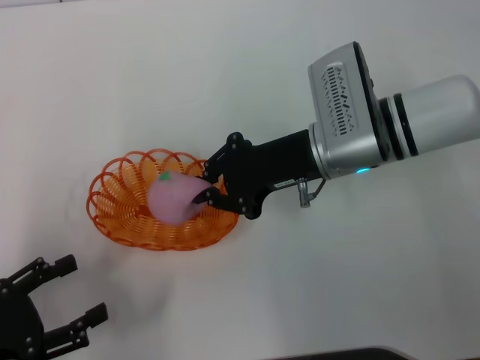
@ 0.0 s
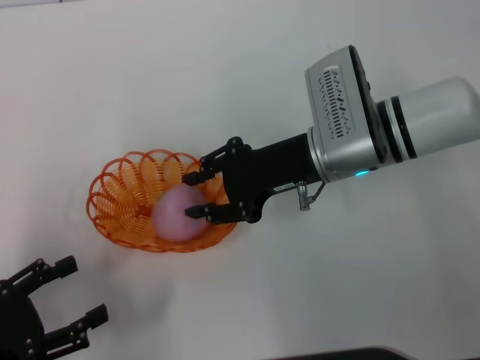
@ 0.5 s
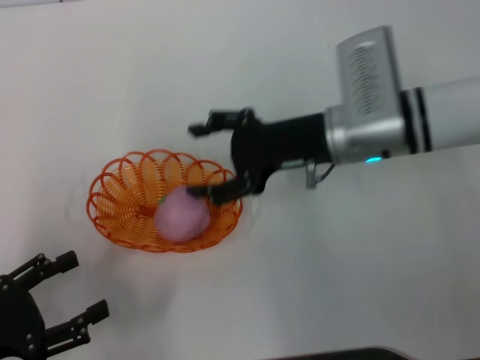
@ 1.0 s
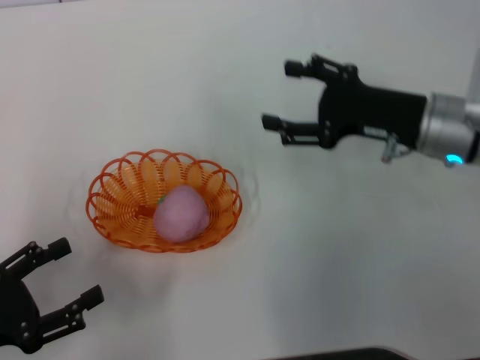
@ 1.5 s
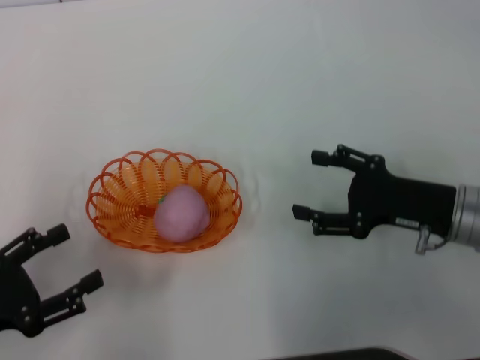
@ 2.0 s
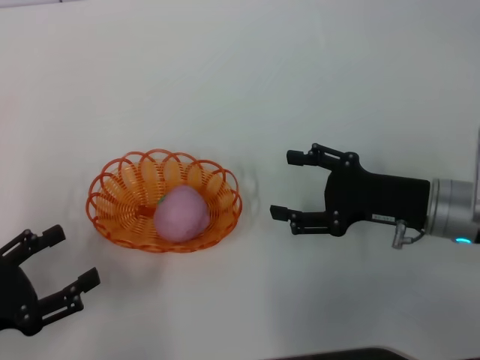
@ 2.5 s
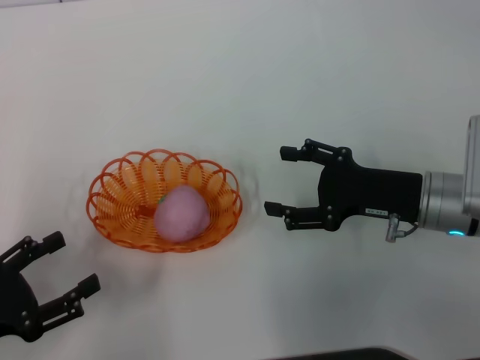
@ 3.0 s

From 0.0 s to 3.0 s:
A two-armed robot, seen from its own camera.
From 0.0 s to 1.5 s: The right gripper travels to the right by some 10 cm, and opens its fingers.
From 1.5 s to 3.0 s: The right gripper moves backward, roughly 5 cm.

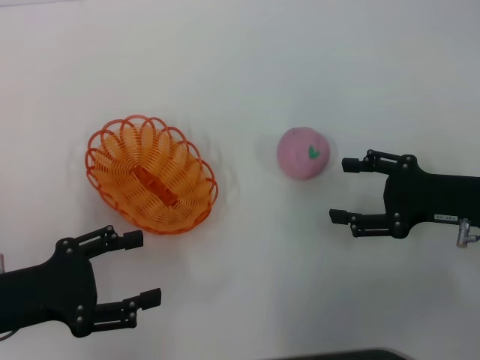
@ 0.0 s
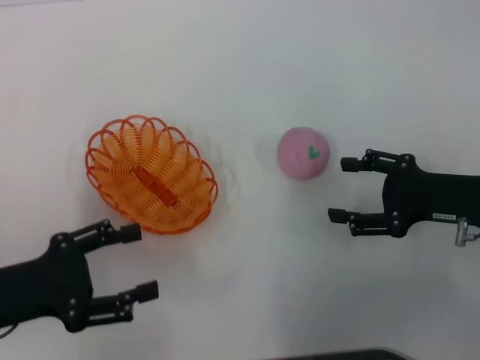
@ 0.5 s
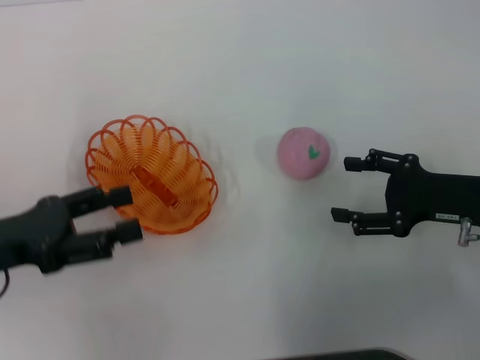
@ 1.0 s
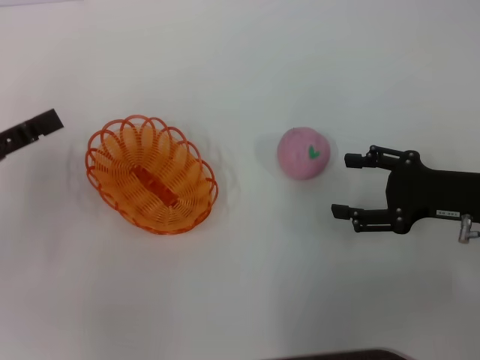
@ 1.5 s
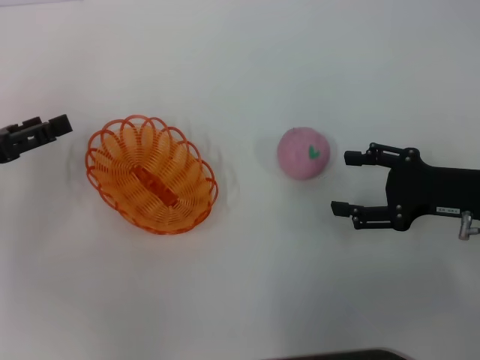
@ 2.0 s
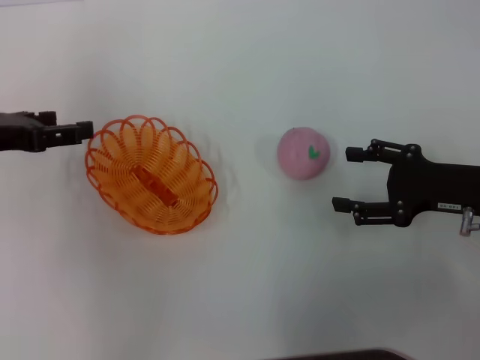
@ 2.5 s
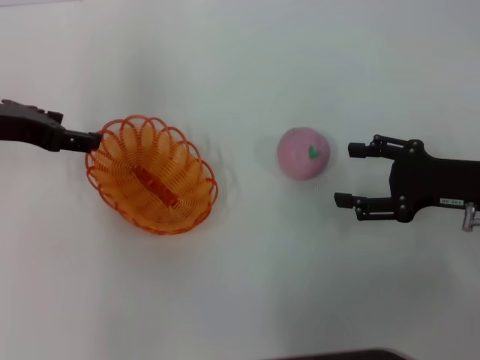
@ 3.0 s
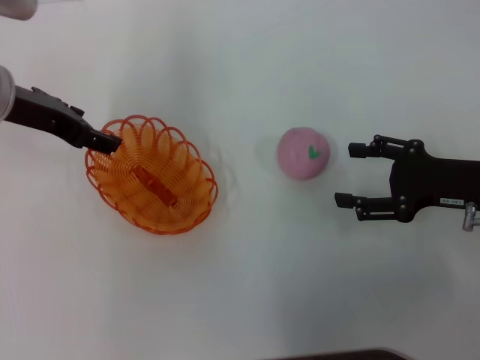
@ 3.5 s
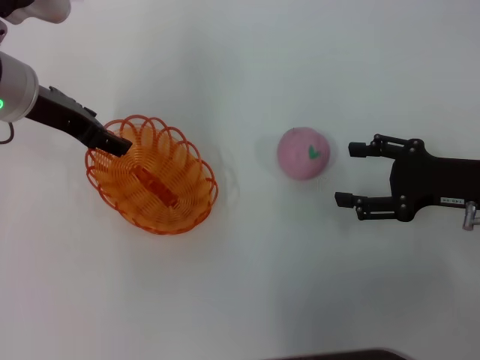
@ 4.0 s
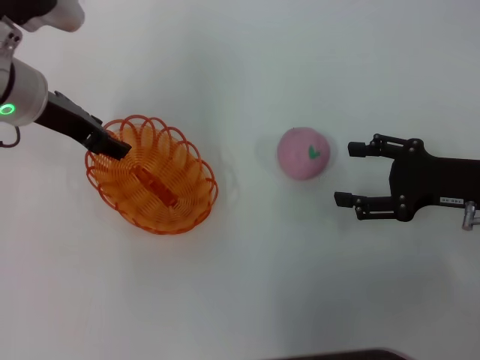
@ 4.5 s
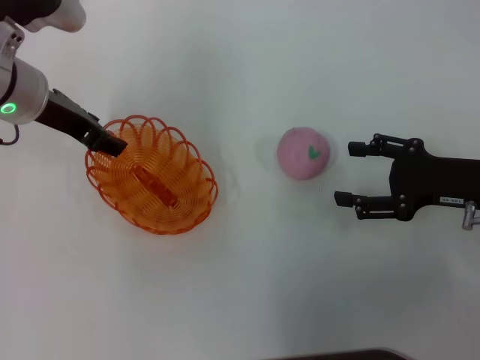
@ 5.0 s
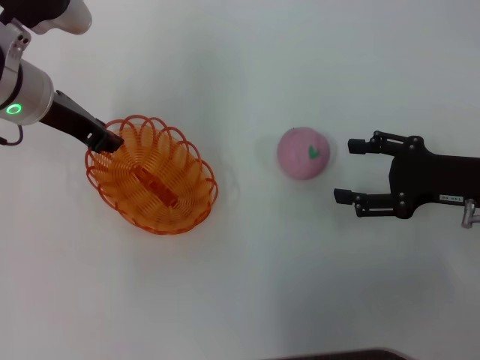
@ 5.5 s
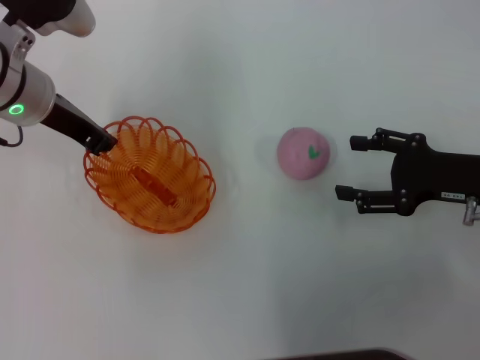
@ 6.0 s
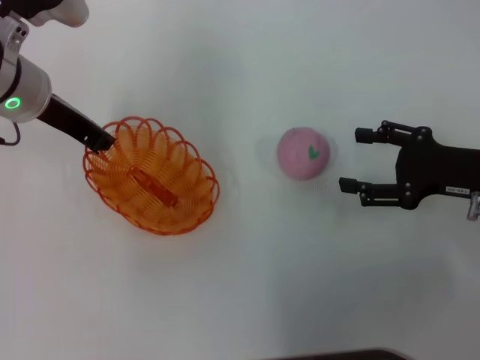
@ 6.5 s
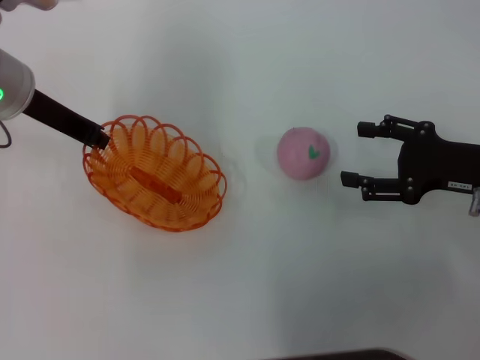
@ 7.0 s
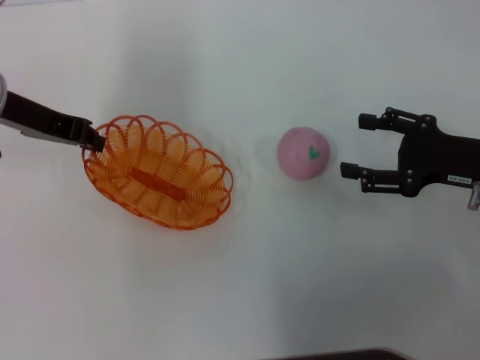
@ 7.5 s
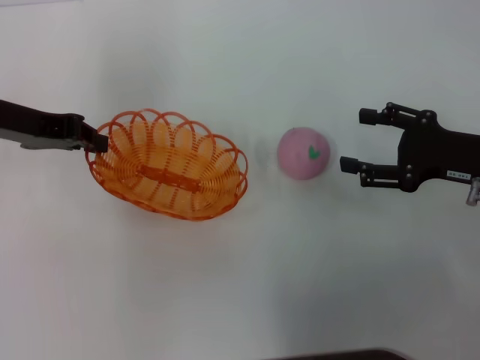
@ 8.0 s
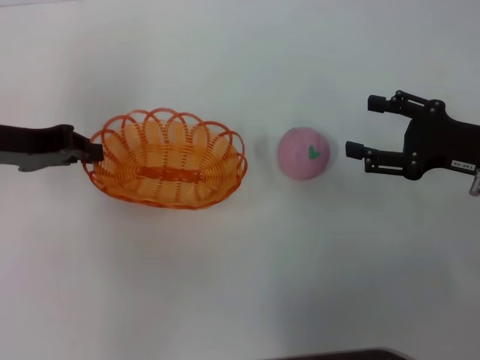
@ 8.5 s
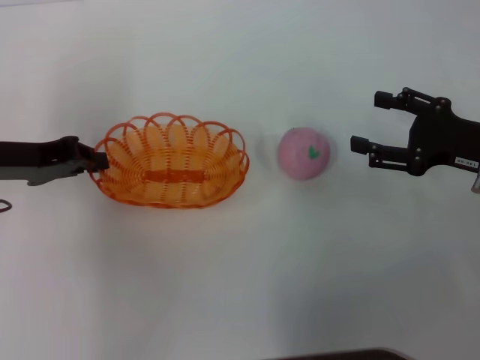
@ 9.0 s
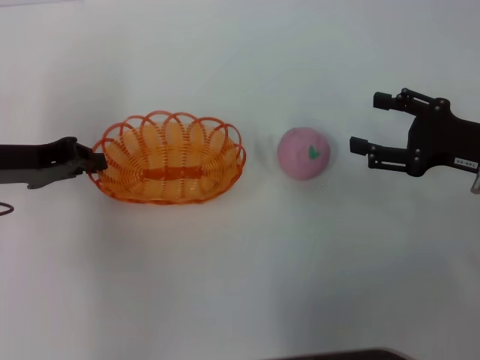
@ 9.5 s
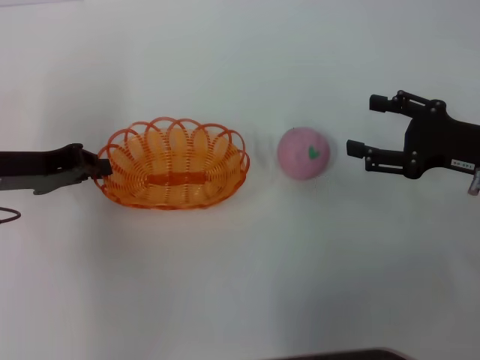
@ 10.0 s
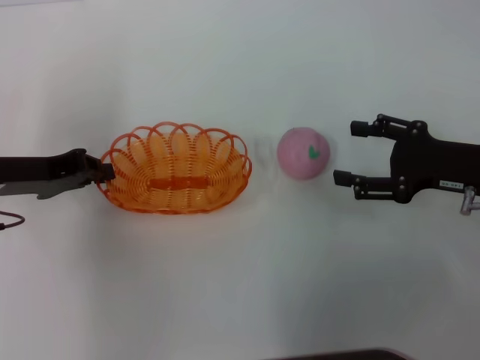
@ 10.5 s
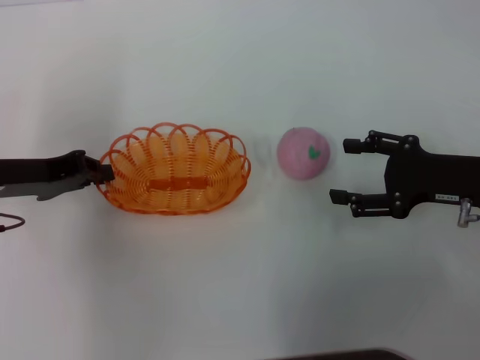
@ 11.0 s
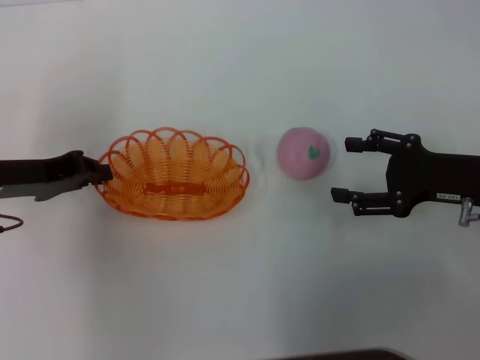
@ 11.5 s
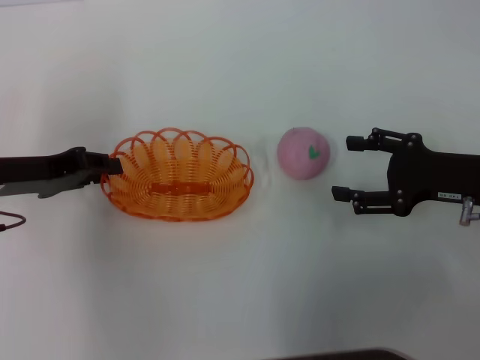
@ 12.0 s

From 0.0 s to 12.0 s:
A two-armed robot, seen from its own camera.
Step, from 0.0 s to 5.5 s: Pick up the basket with the left gripper.
From 0.0 s to 2.0 s: The left gripper is displaced forward by approximately 10 cm.
From 2.0 s to 4.0 s: The left gripper is displaced to the right, forward and upward by some 15 cm.
From 4.0 s to 6.0 s: The left gripper closes.
From 6.0 s to 8.0 s: The left gripper heads to the left, covering roughly 5 cm.
From 8.0 s to 10.0 s: The left gripper is displaced downward by roughly 5 cm.
From 10.0 s to 12.0 s: There are only small adjustments of the grippers.

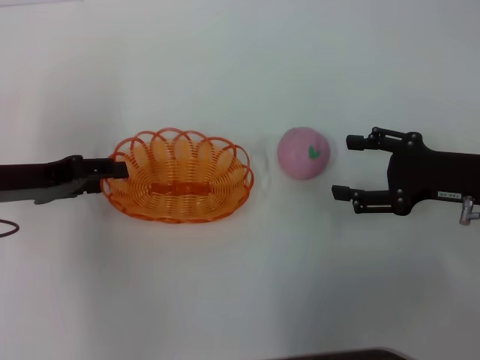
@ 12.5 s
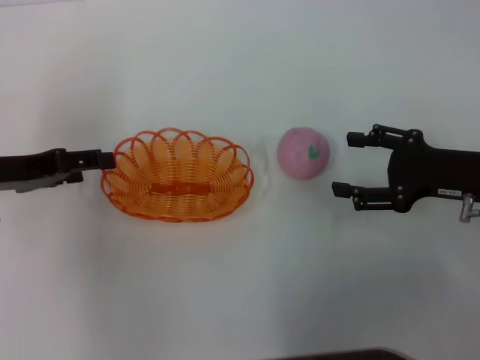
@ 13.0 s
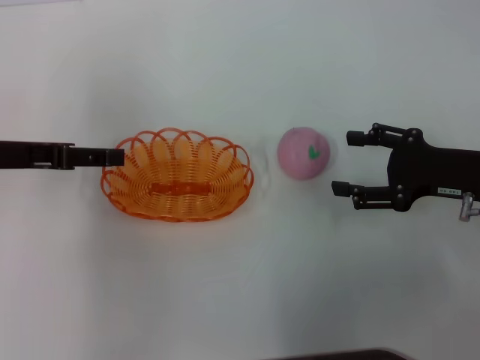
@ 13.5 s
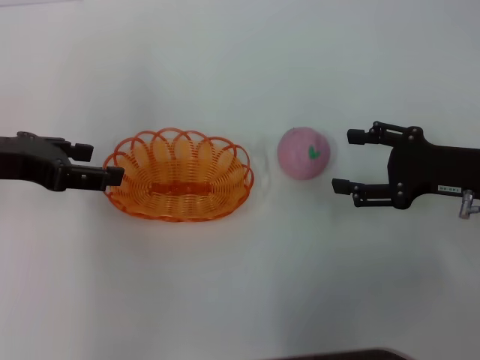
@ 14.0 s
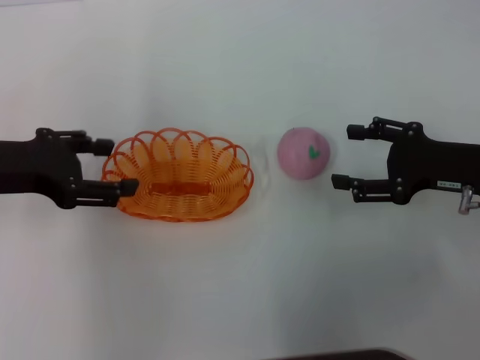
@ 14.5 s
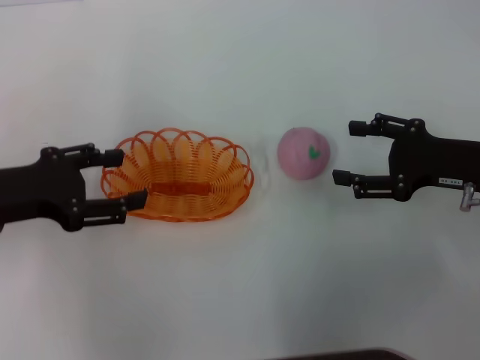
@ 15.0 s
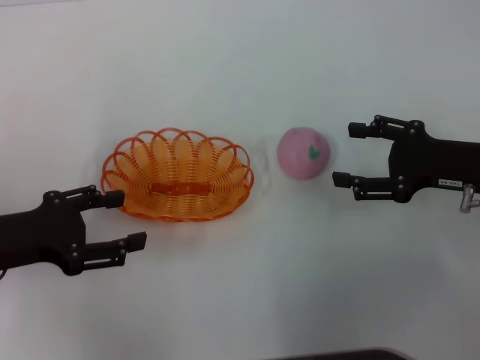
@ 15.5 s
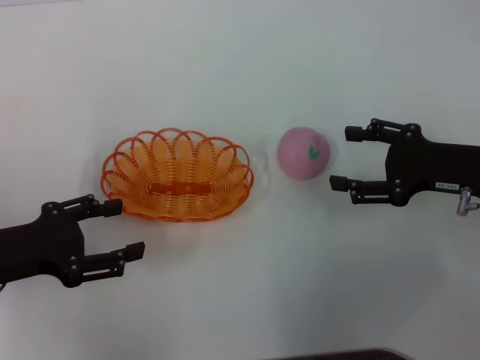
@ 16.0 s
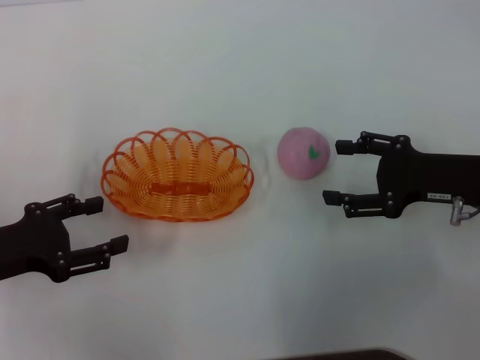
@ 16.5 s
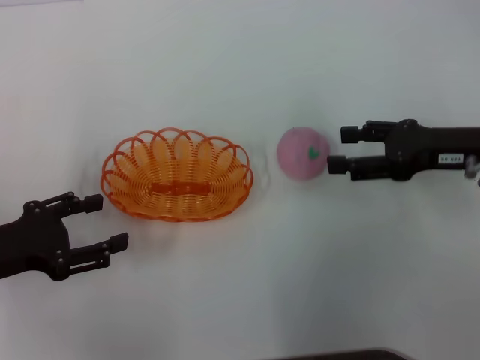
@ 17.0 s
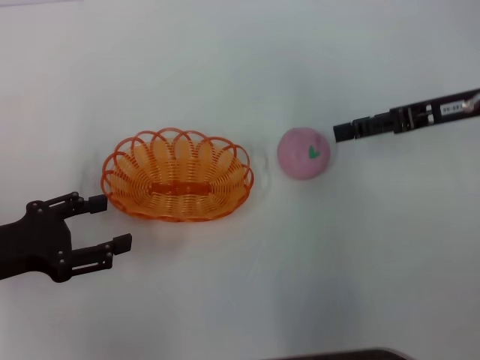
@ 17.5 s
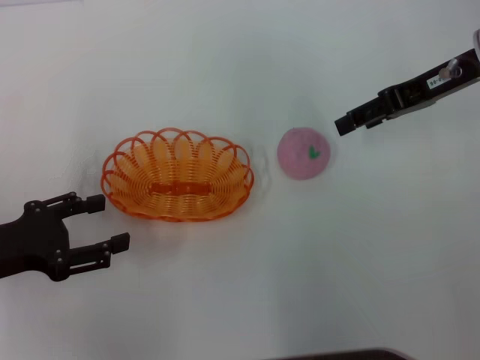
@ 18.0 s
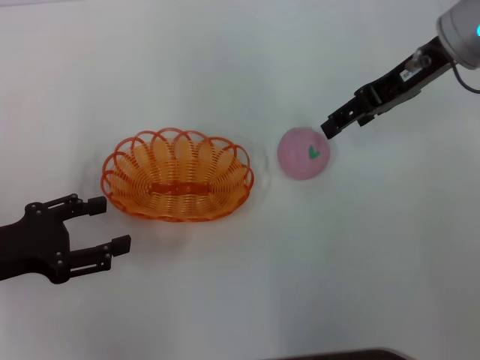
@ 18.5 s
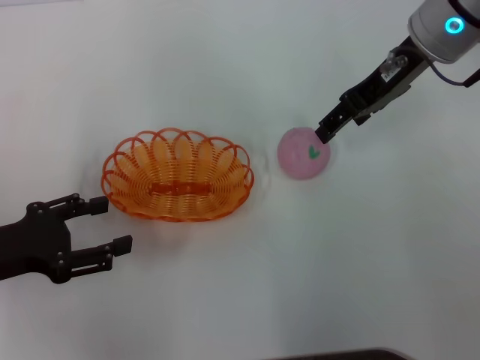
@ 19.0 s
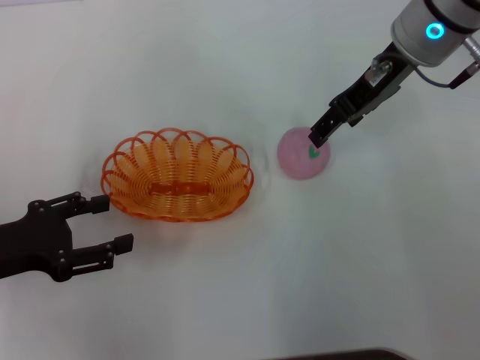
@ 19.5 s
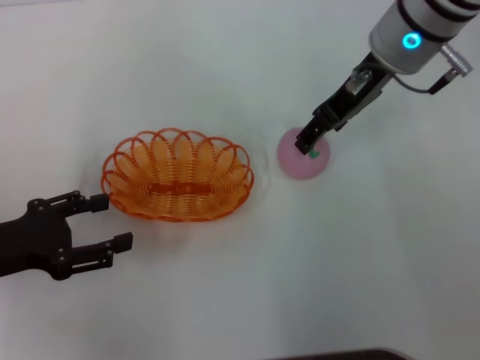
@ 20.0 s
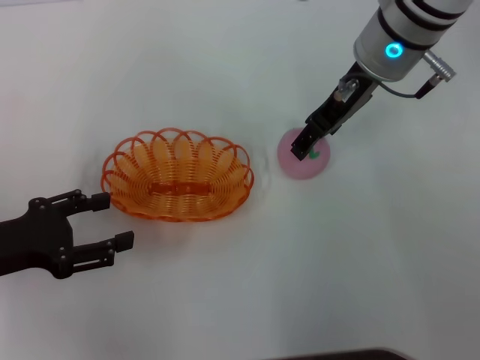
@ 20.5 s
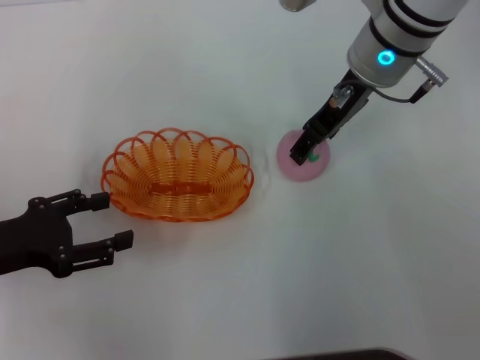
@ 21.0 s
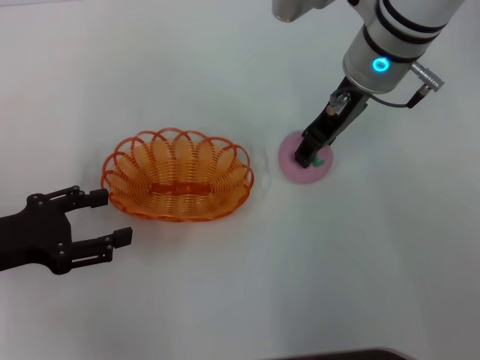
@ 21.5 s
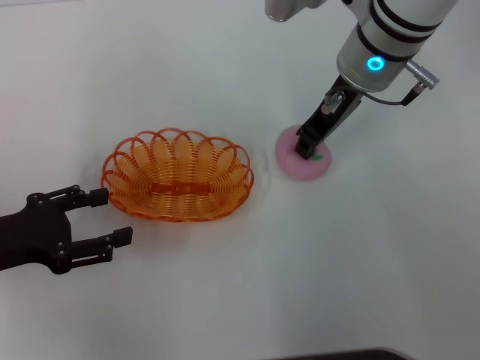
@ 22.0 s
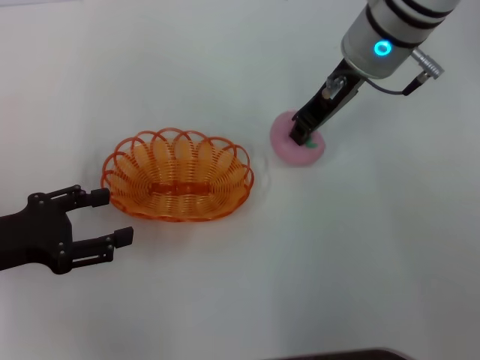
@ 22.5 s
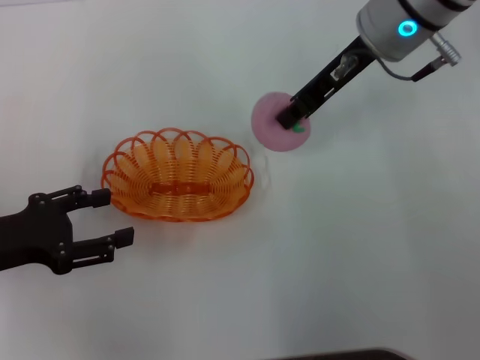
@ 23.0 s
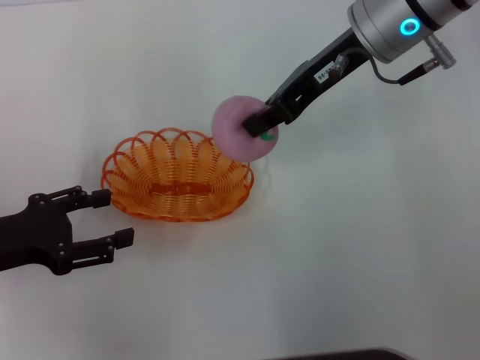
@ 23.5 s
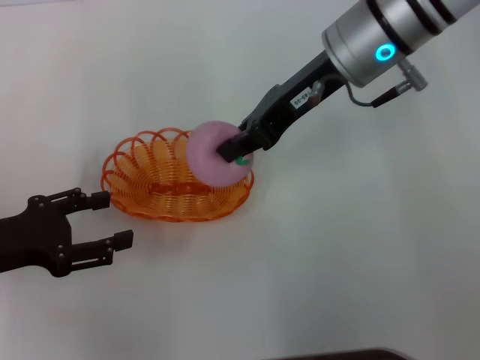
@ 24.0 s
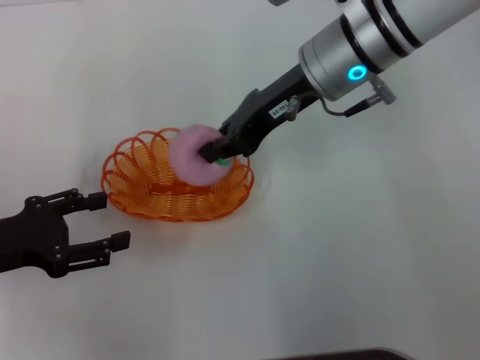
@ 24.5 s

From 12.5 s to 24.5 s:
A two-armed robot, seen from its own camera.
Step, from 14.5 s to 23.0 s: Pick up the peach with the right gripper.
From 12.5 s to 14.5 s: The left gripper opens up.
From 14.5 s to 16.5 s: The left gripper heads downward and backward, covering approximately 10 cm.
From 16.5 s to 18.5 s: The right gripper is displaced upward, forward and to the left by roughly 20 cm.
From 18.5 s to 20.5 s: The right gripper shifts about 10 cm to the left.
From 20.5 s to 22.5 s: The right gripper closes up.
